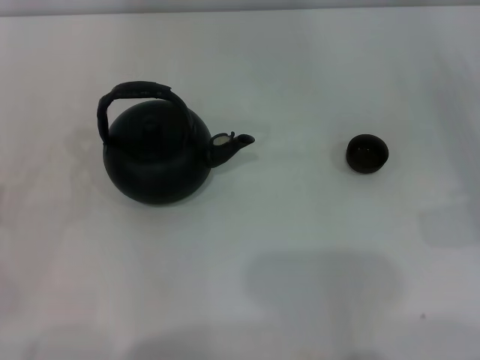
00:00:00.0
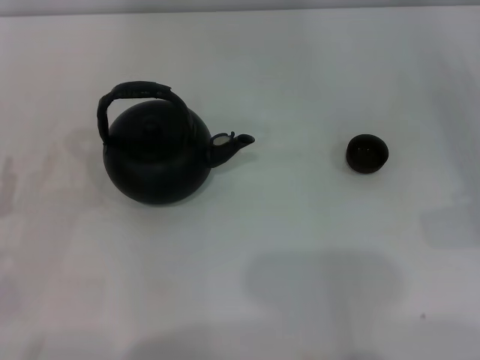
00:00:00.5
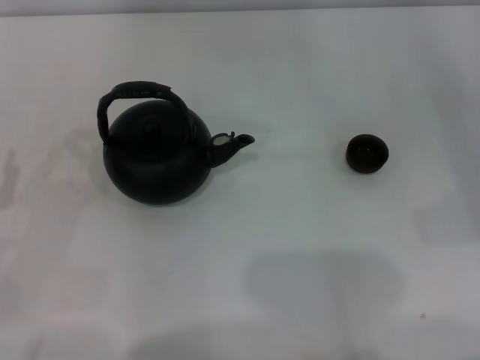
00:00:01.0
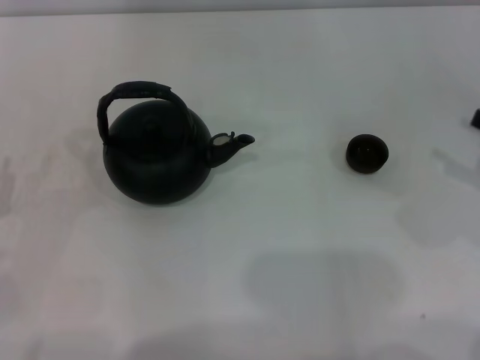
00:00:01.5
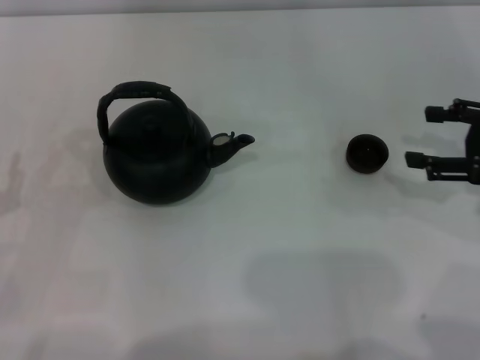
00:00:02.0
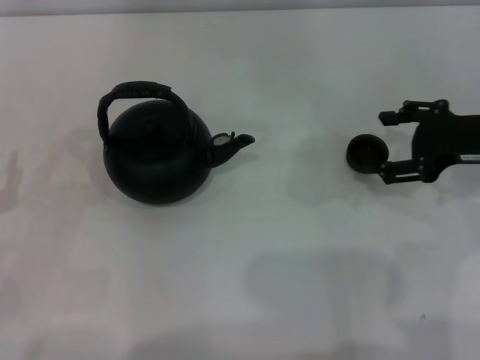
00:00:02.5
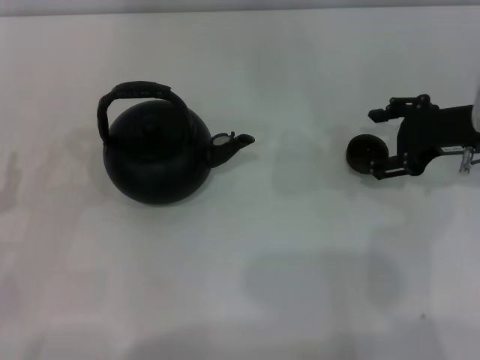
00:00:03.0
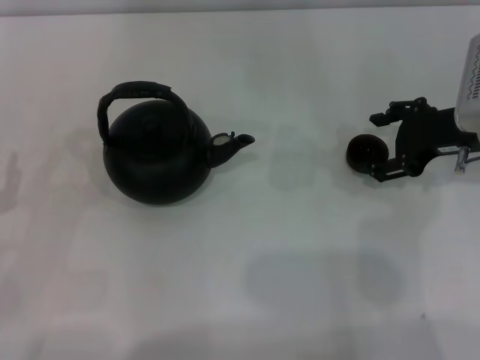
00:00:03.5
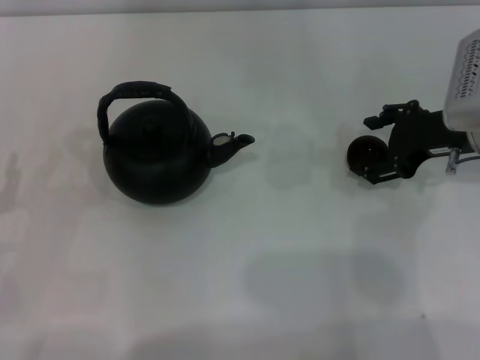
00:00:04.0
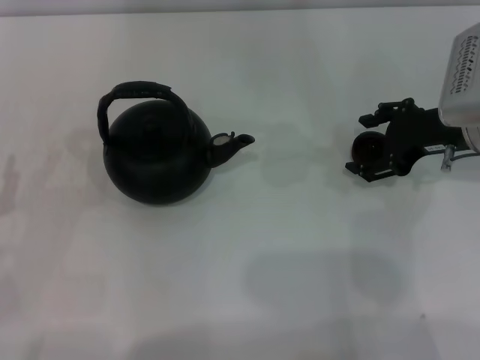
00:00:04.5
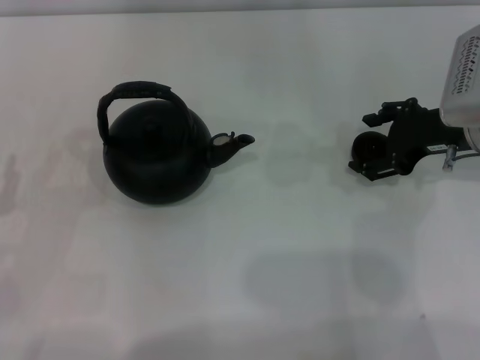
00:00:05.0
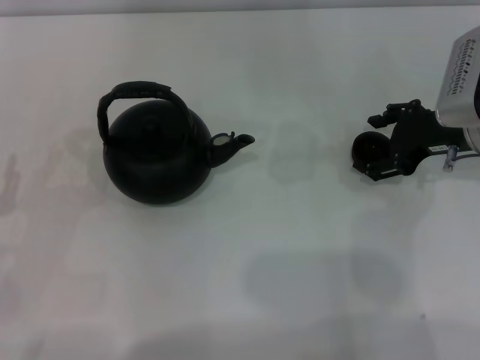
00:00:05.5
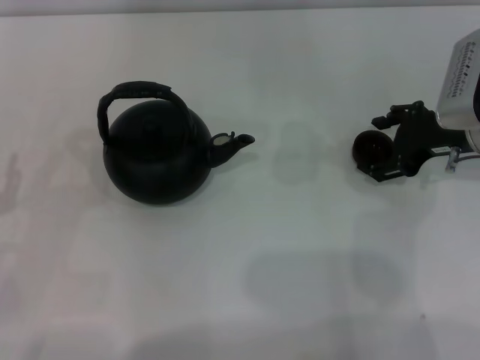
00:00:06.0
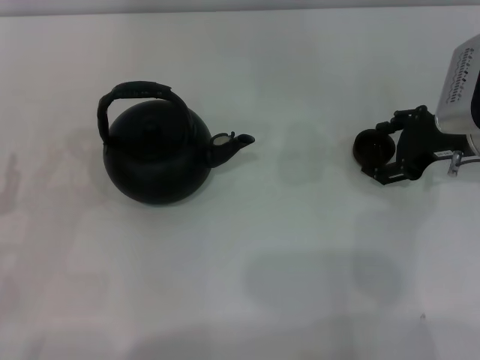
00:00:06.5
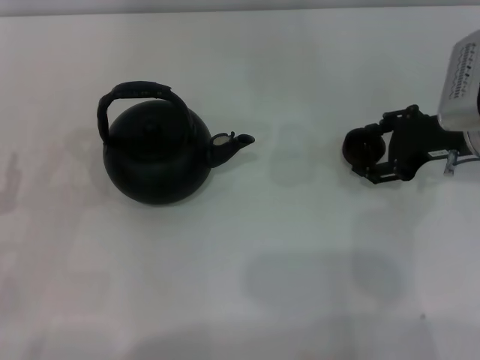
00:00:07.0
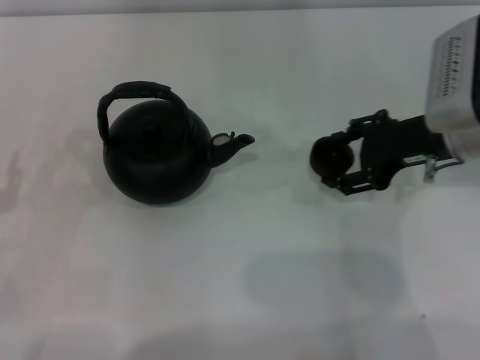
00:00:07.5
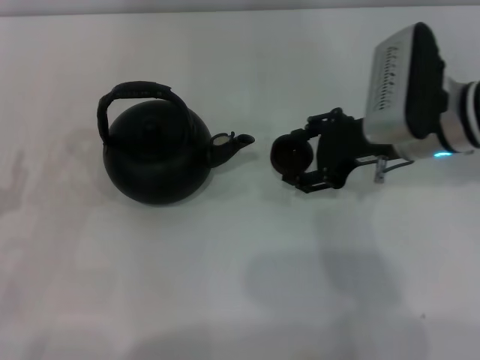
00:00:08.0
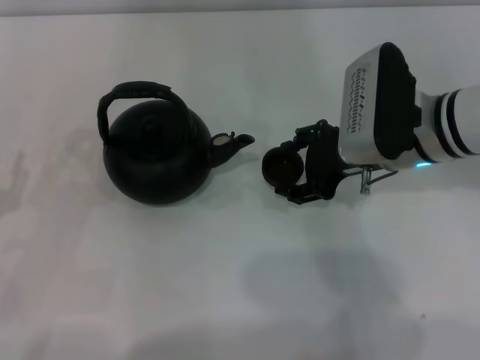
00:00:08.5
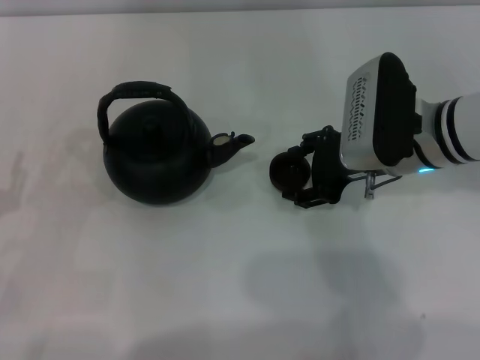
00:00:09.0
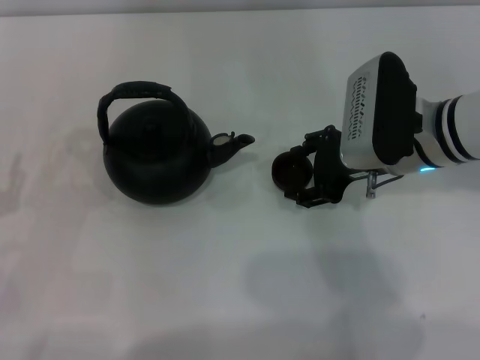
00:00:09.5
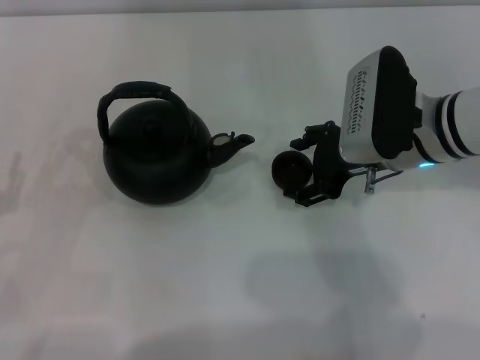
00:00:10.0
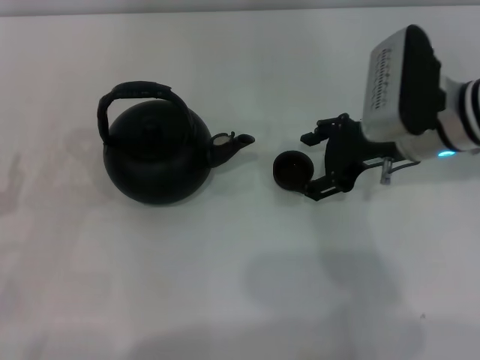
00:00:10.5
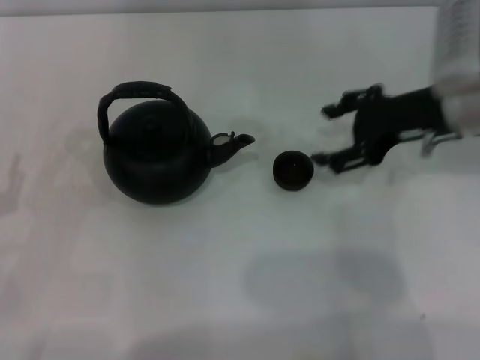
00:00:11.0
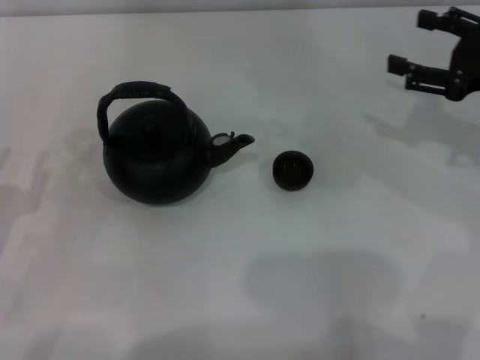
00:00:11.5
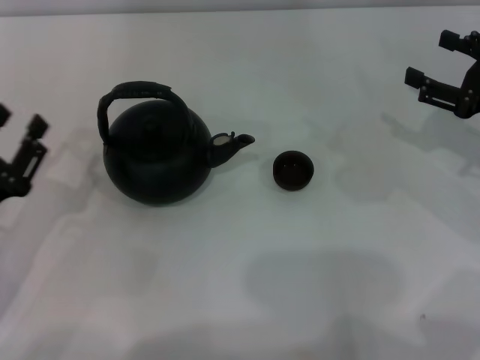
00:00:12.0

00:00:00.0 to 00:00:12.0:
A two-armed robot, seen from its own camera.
Task of the whole recording: Grasp the handle of the teapot with one hand and pour tea into the teacup.
Step, 00:00:00.0 to 00:00:07.0: Pick up the teacup with the right gripper.
Step, 00:00:07.5 to 00:00:10.5: Place the teacup in the center of view with the right gripper.
00:00:00.0 to 00:00:02.0: The right gripper shifts some 5 cm upward.
00:00:02.0 to 00:00:04.0: The right gripper travels to the left and forward by about 10 cm.
00:00:04.0 to 00:00:06.0: Both grippers stay put.
00:00:06.0 to 00:00:08.0: The right gripper travels to the left by roughly 10 cm, and closes.
00:00:08.0 to 00:00:10.0: The right gripper opens.
00:00:10.0 to 00:00:12.0: The right gripper heads to the right, covering approximately 15 cm, and opens.

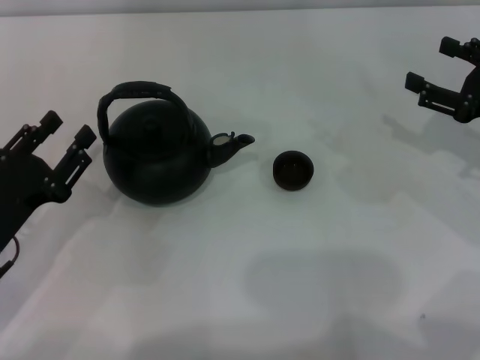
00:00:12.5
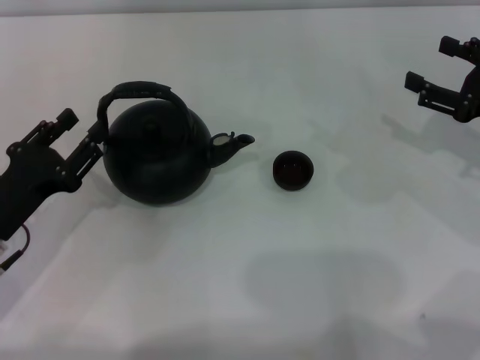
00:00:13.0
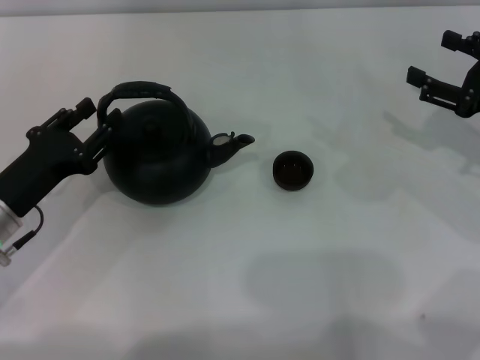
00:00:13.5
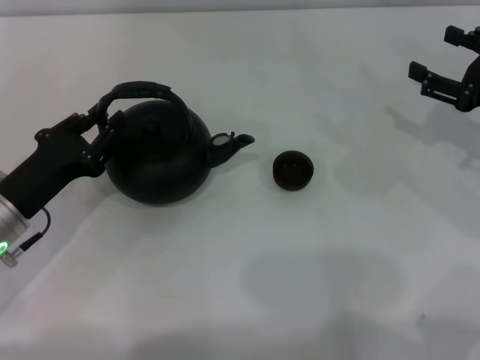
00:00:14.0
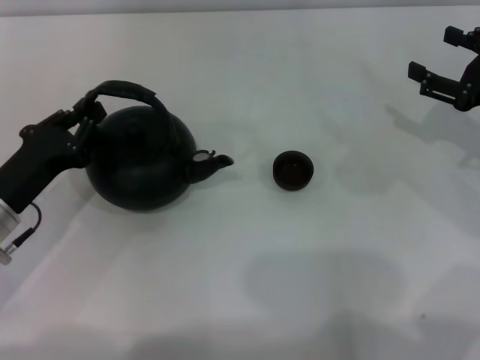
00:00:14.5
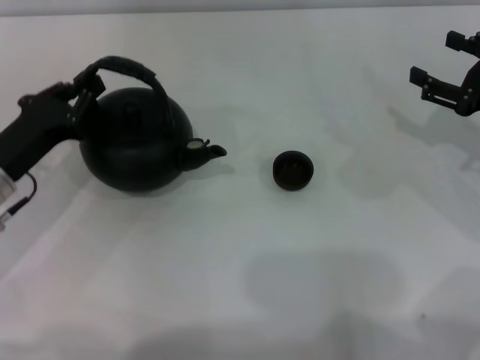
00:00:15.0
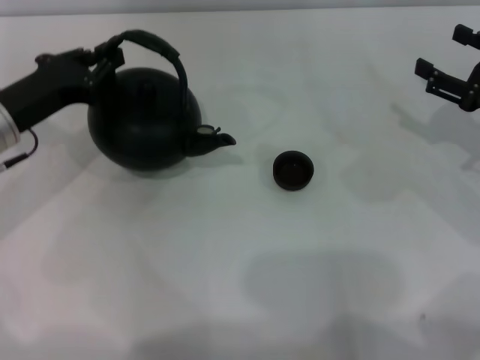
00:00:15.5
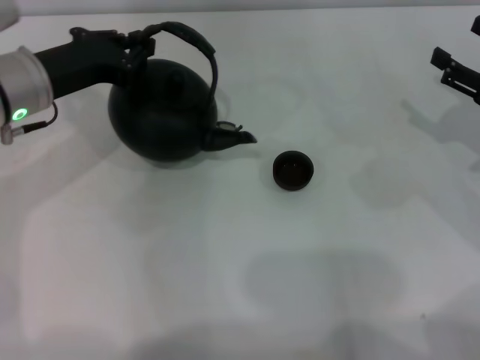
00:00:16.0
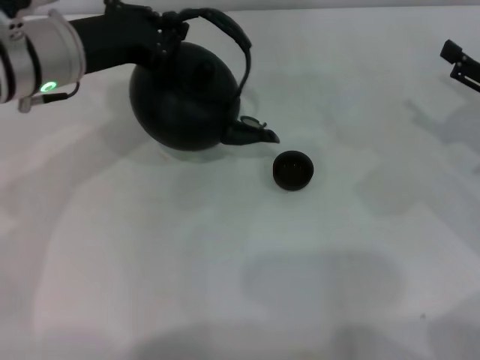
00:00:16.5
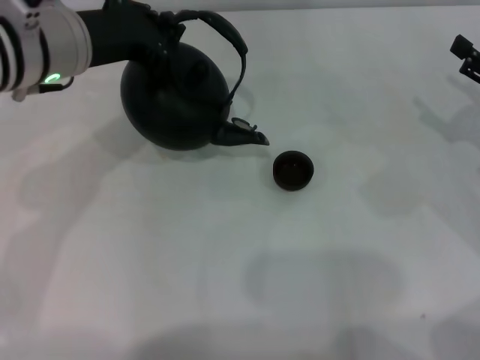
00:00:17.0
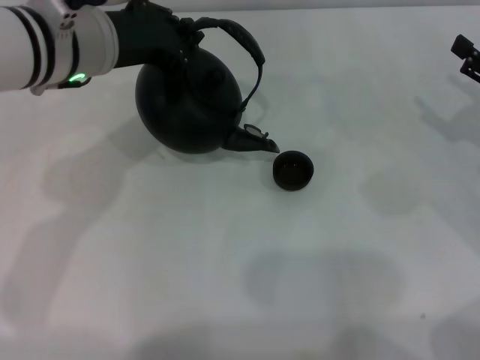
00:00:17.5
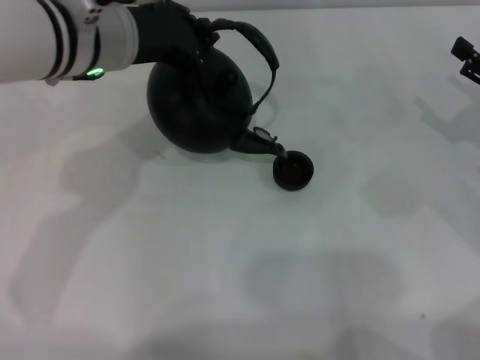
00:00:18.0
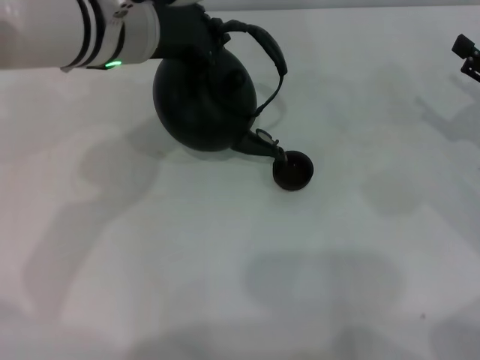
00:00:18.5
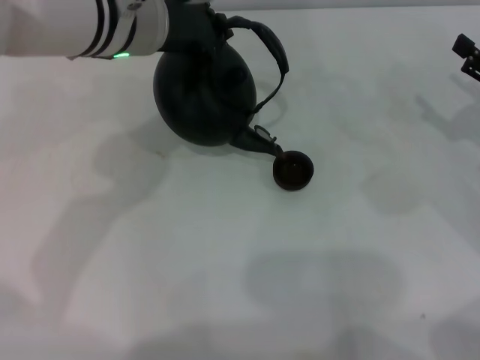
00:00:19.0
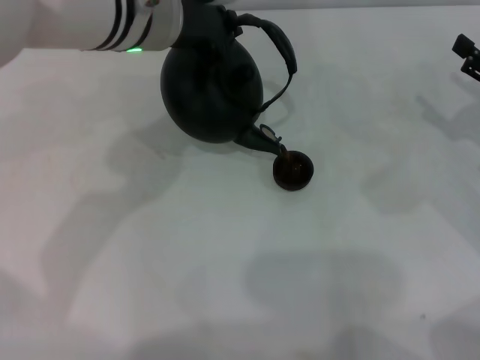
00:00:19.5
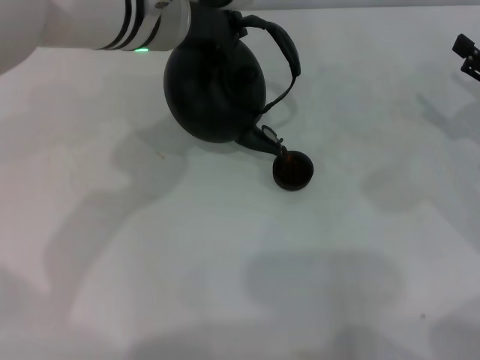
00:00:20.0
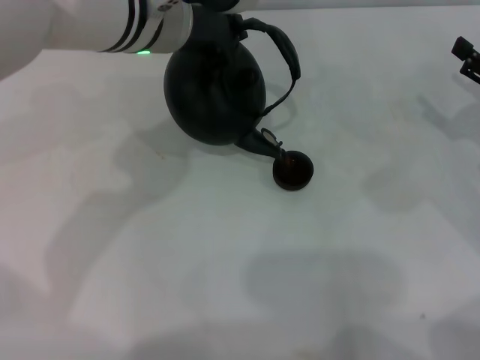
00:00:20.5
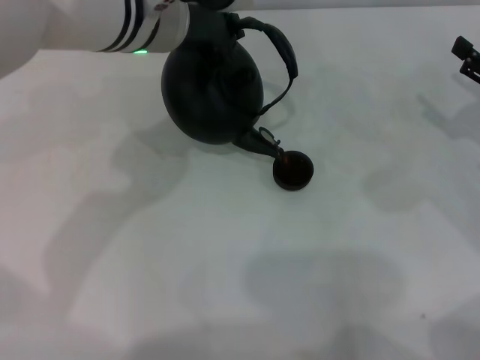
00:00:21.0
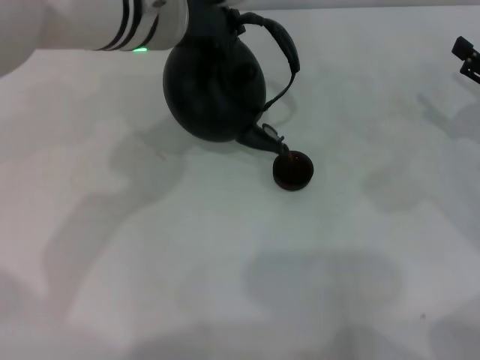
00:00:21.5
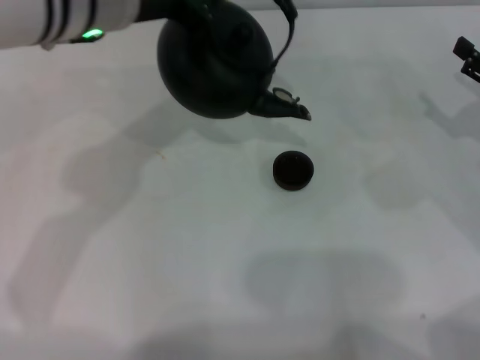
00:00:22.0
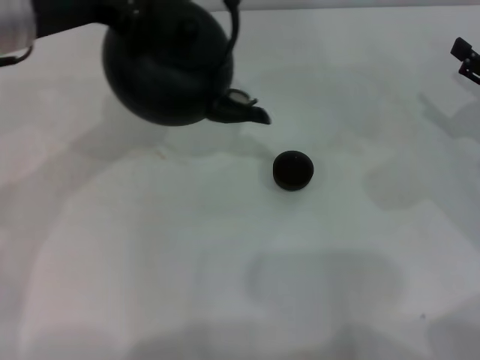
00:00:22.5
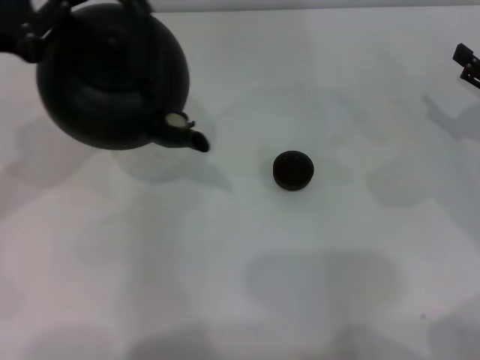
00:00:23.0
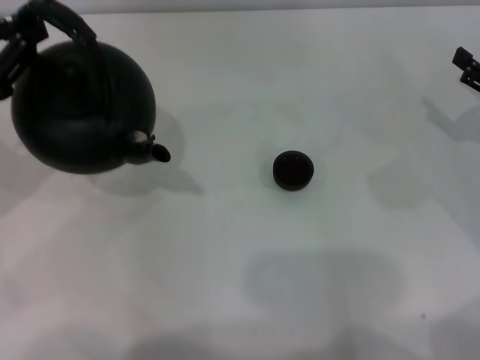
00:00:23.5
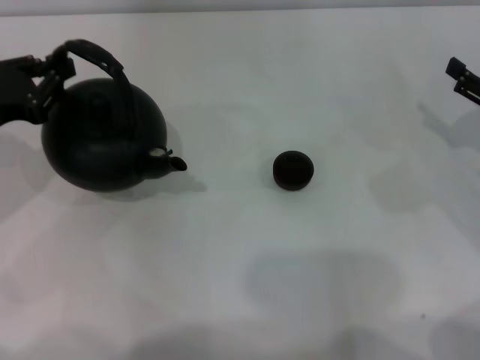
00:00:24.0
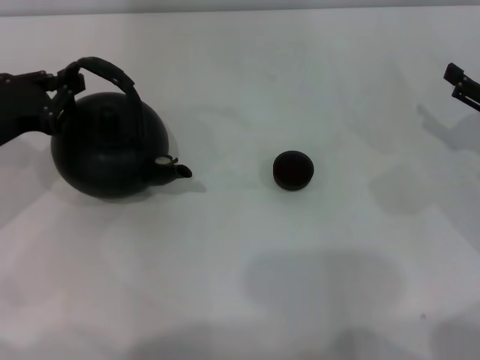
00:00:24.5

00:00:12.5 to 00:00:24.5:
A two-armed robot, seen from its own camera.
Task of the whole recording: Grasp the handle of the teapot with one hand and pour tea into the teacup.
Step, 00:00:12.5 to 00:00:16.0: Pick up the teapot with the left gripper.
Step, 00:00:16.5 to 00:00:22.0: Pour tea into the teacup with the left gripper.
00:00:12.5 to 00:00:14.5: The left gripper closes up.
00:00:14.5 to 00:00:16.5: The left gripper travels upward, forward and to the right by about 20 cm.
00:00:16.5 to 00:00:18.5: The left gripper is displaced to the right by roughly 5 cm.
00:00:18.5 to 00:00:20.5: The grippers stay close to where they were, moving slightly.
00:00:20.5 to 00:00:22.5: The left gripper heads to the left, covering roughly 10 cm.
00:00:22.5 to 00:00:24.5: The left gripper is displaced downward and to the left by approximately 15 cm.

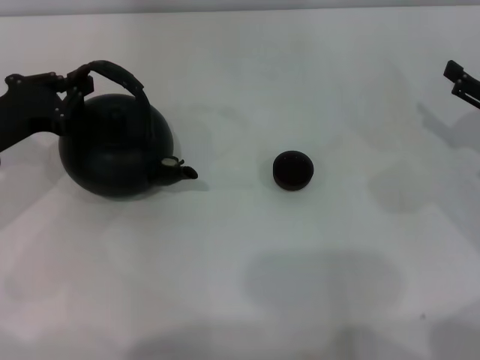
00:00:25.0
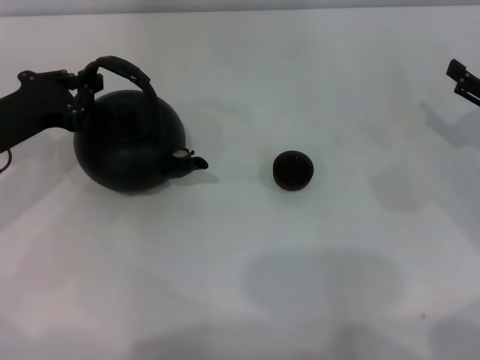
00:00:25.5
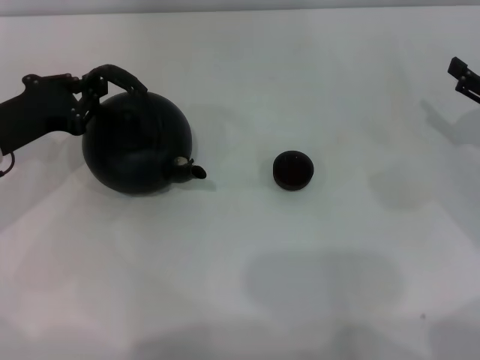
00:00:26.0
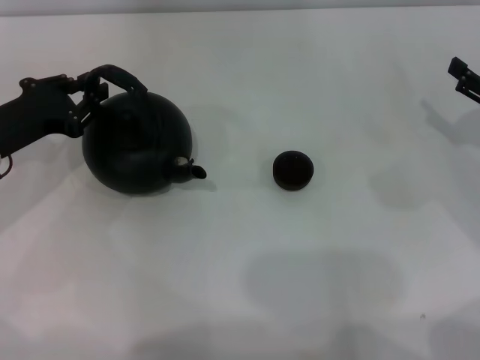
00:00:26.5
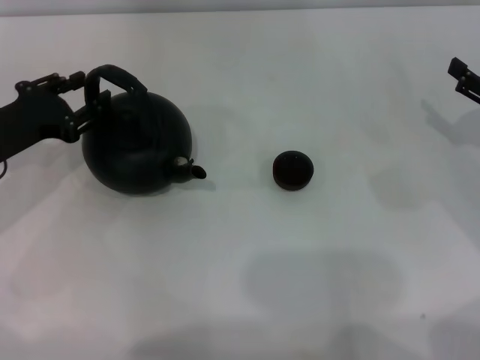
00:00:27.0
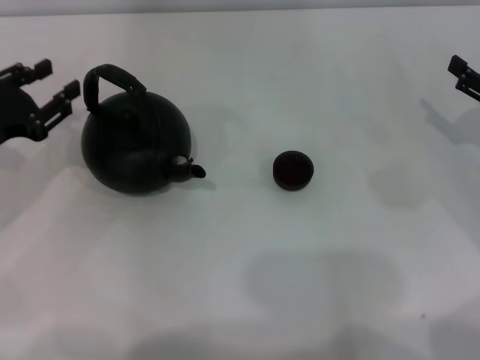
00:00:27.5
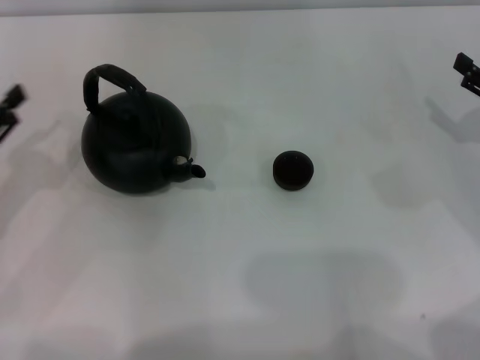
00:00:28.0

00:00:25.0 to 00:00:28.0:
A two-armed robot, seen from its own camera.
Task of the whole recording: Grasp the handle of the teapot with one hand and pour tea into the teacup.
Step, 00:00:25.0 to 00:00:27.5: Put down the teapot with the left gripper.
00:00:25.0 to 00:00:26.5: The grippers make only small movements.
00:00:26.5 to 00:00:28.0: The left gripper heads backward, covering approximately 10 cm, and opens up.
